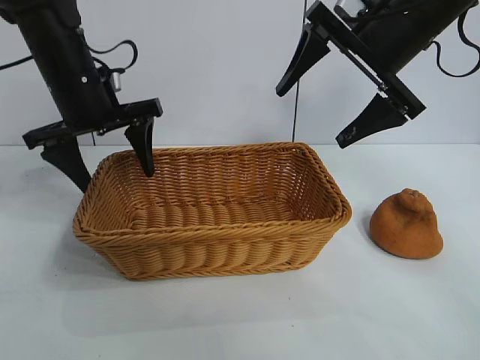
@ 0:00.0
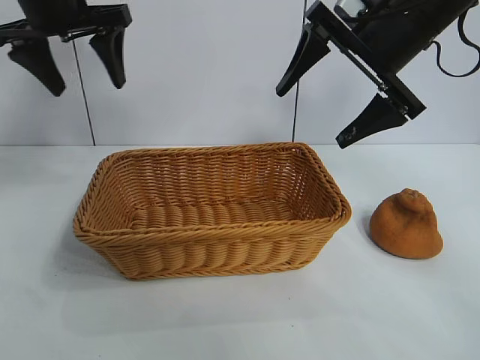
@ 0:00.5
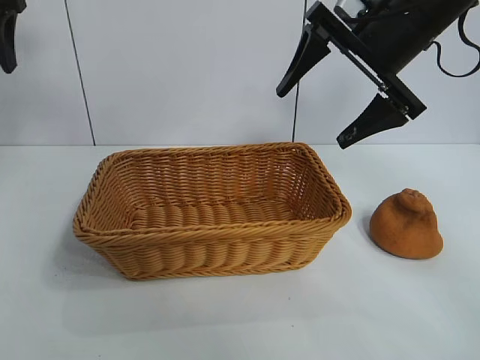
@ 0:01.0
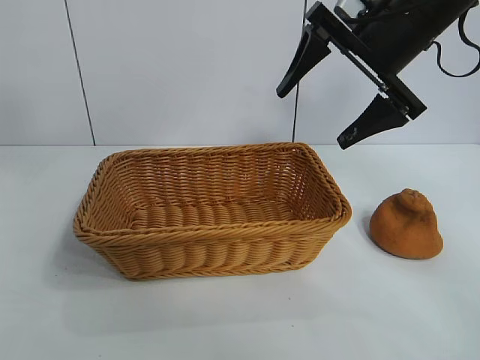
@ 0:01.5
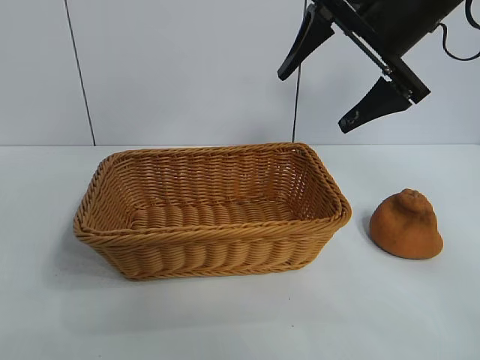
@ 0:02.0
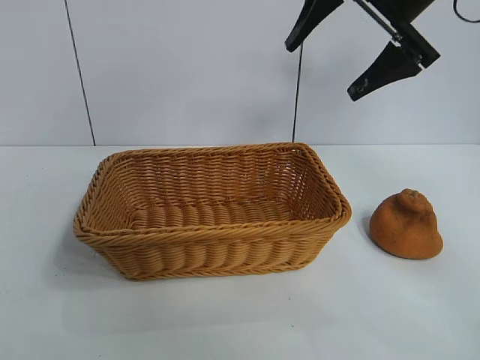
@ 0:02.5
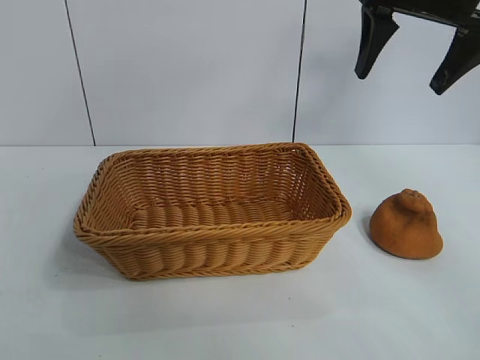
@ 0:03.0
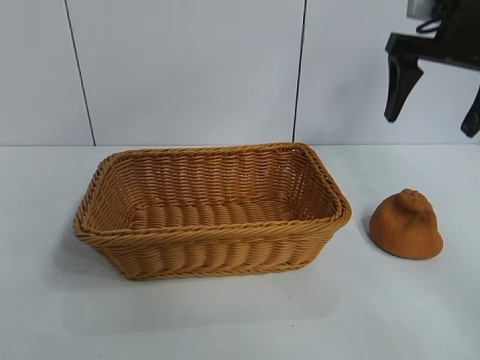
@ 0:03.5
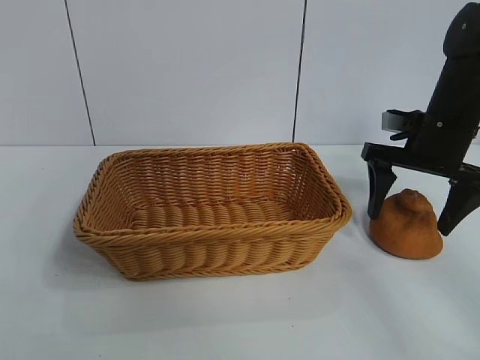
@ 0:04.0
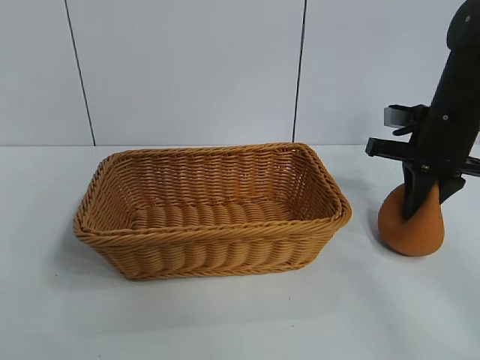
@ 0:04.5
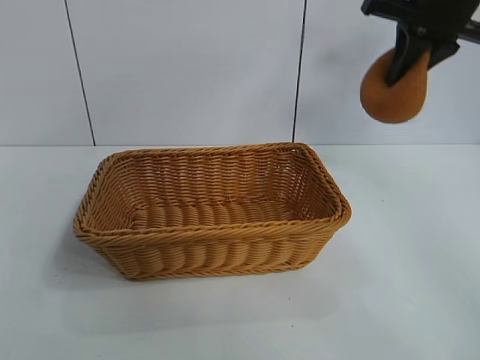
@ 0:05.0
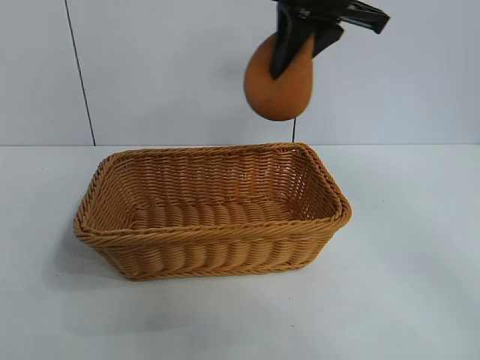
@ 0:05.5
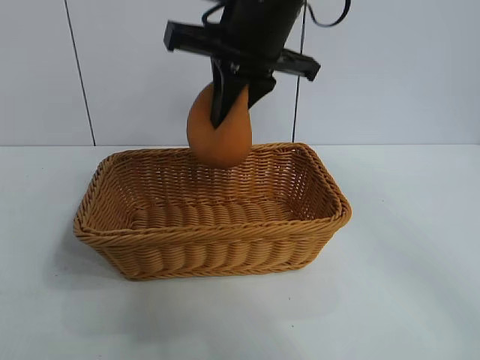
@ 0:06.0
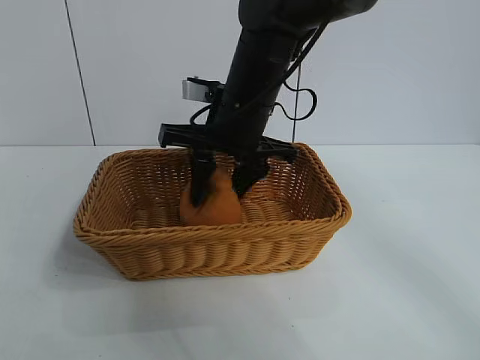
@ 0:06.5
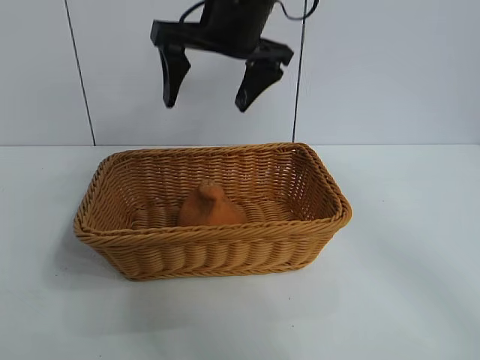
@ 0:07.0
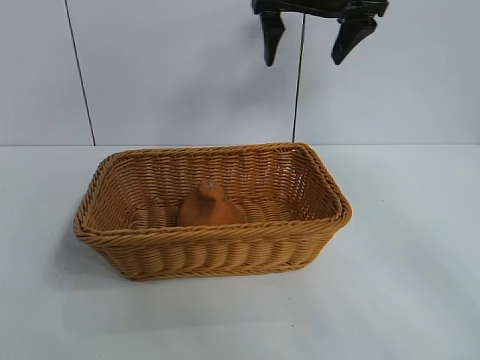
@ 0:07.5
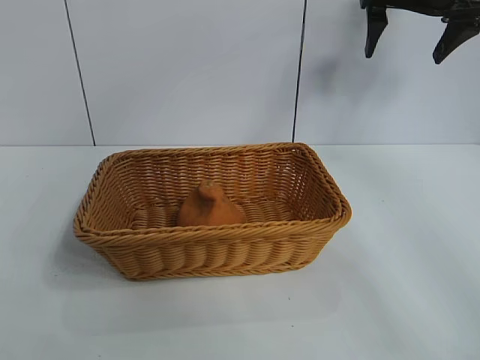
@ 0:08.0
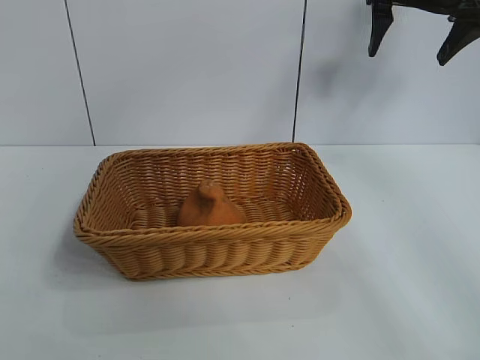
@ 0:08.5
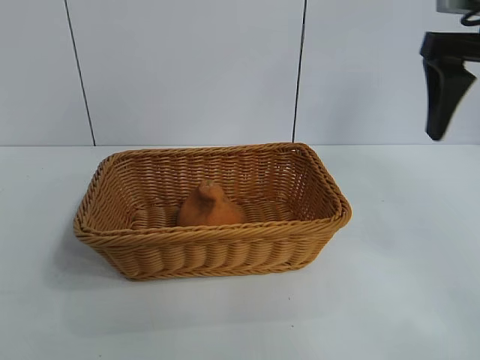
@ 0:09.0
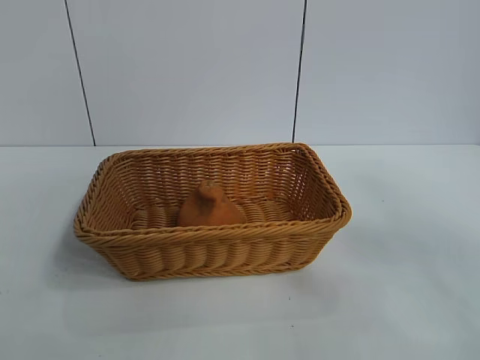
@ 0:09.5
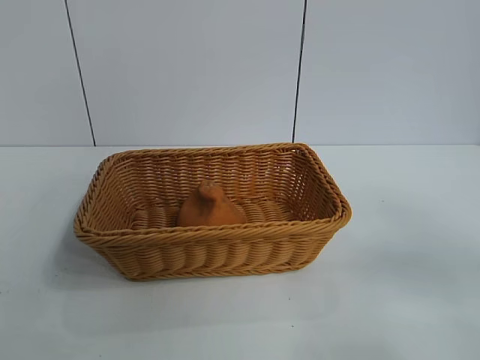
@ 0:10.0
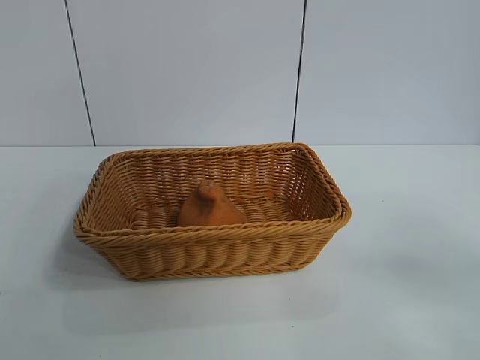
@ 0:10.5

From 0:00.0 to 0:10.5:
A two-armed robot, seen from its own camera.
Task of the whole recording: pick up the orange and put it into the basket.
Step, from 0:00.0 to 0:04.0: Grasp the orange with right gripper.
Step, from 0:04.5 to 0:06.5: Place the orange in the basket with right gripper.

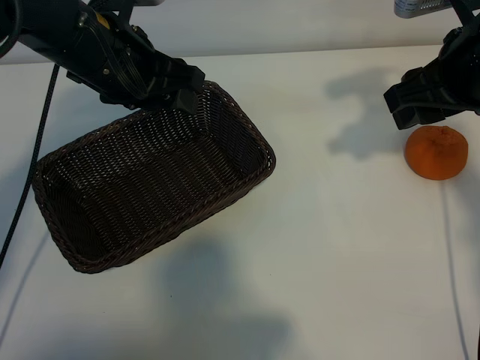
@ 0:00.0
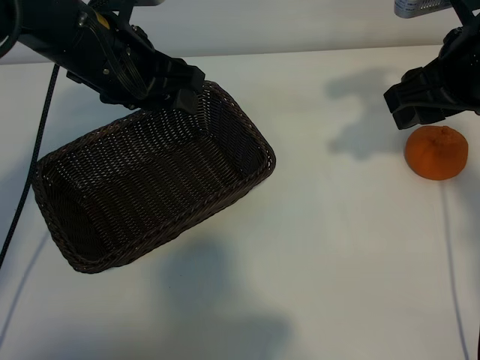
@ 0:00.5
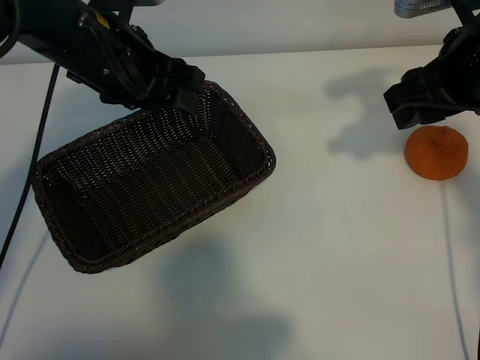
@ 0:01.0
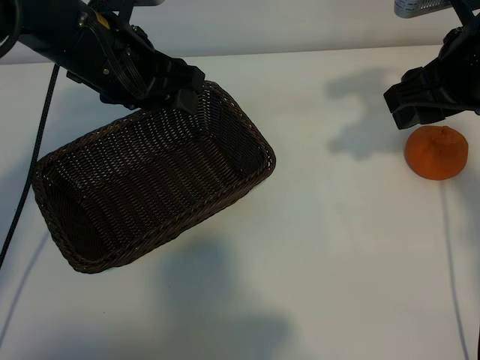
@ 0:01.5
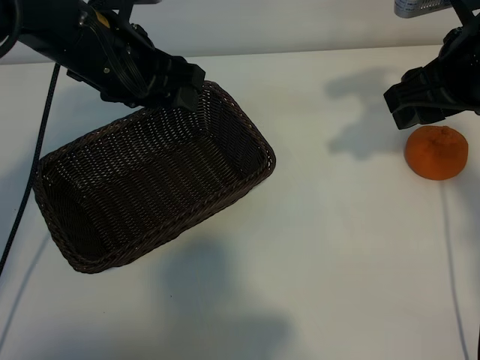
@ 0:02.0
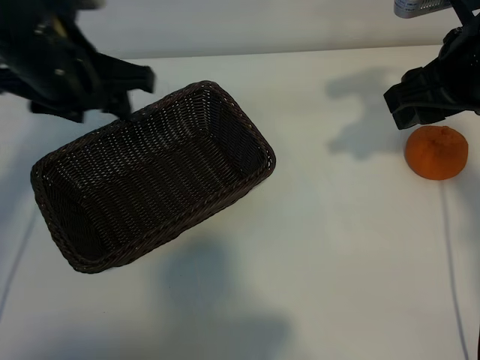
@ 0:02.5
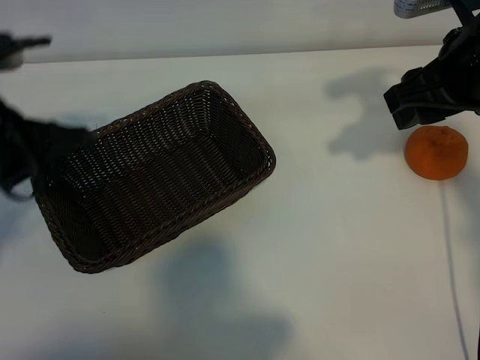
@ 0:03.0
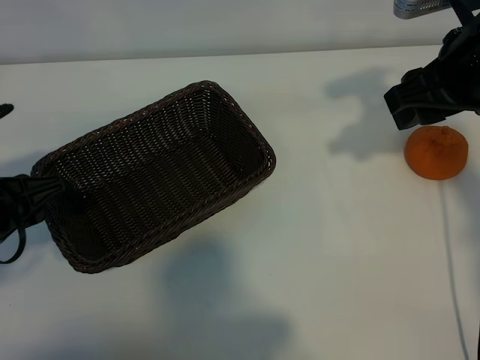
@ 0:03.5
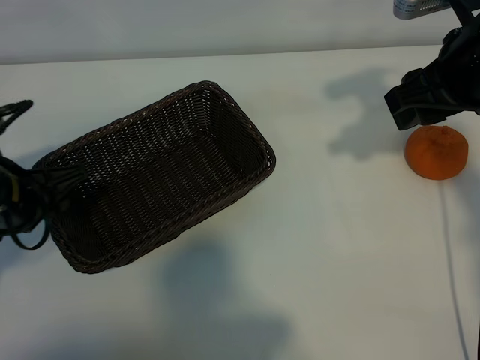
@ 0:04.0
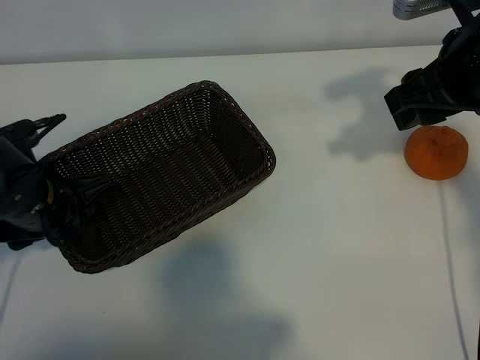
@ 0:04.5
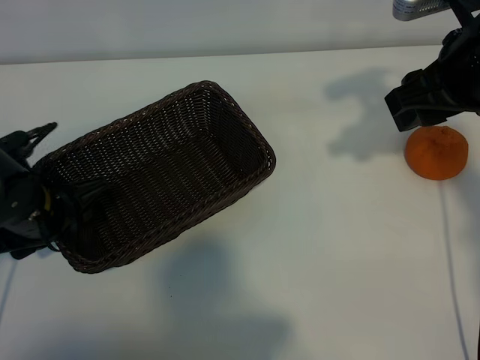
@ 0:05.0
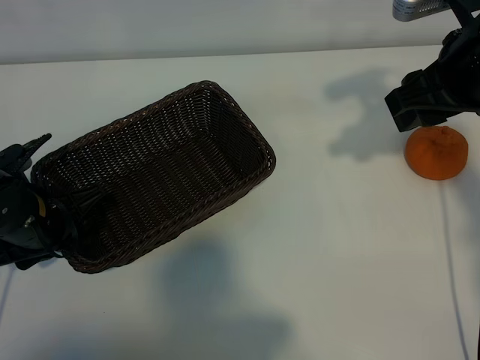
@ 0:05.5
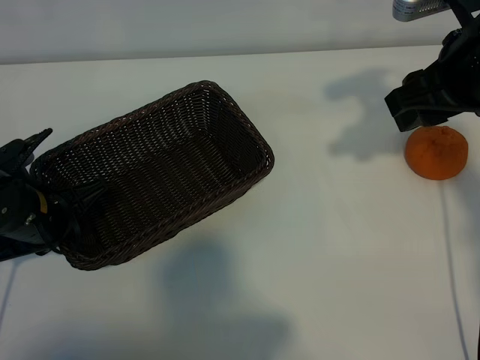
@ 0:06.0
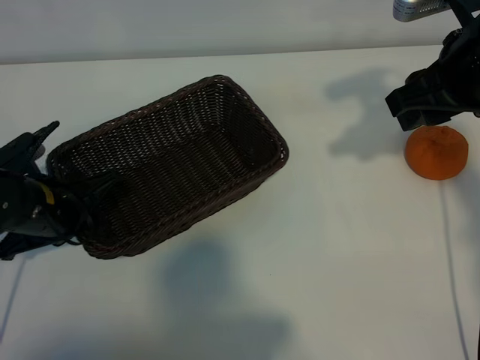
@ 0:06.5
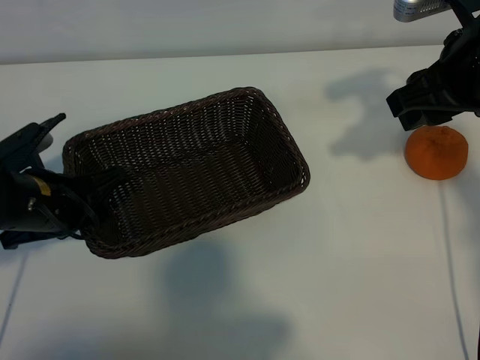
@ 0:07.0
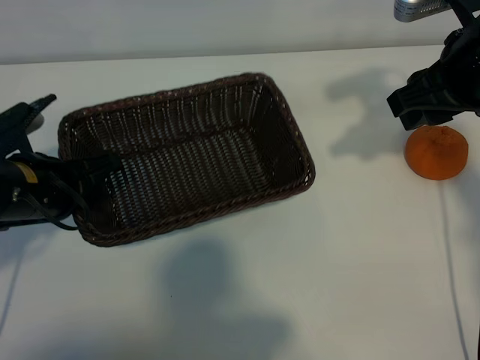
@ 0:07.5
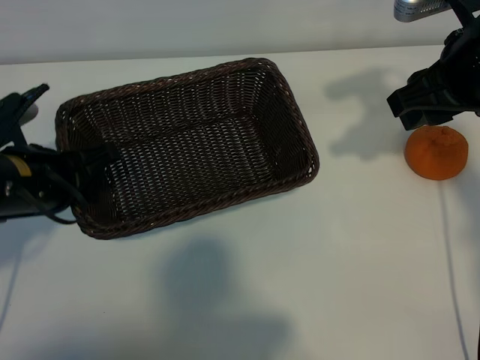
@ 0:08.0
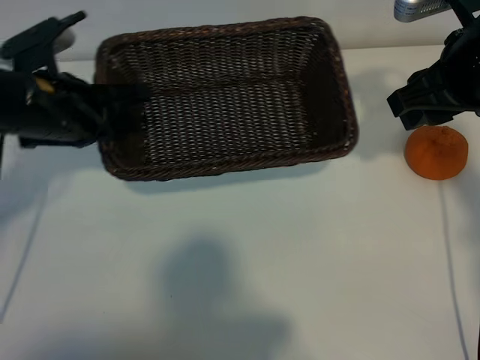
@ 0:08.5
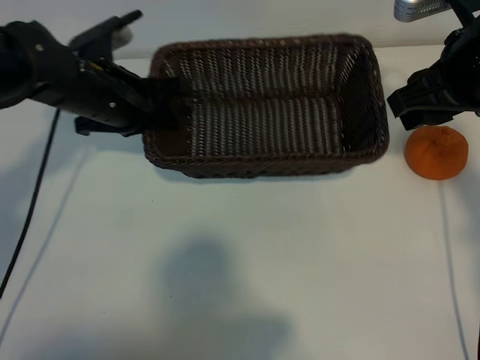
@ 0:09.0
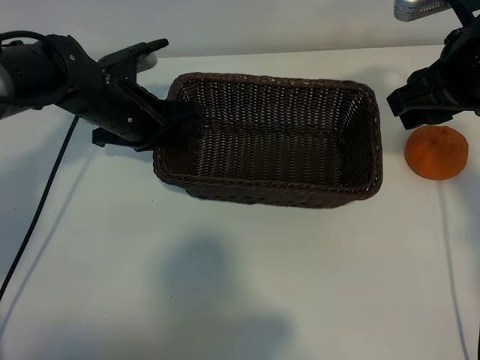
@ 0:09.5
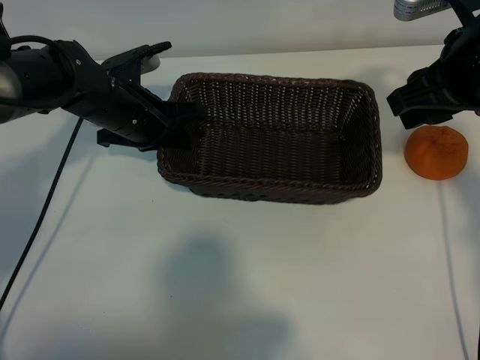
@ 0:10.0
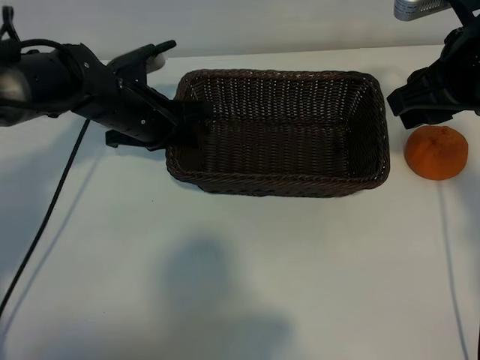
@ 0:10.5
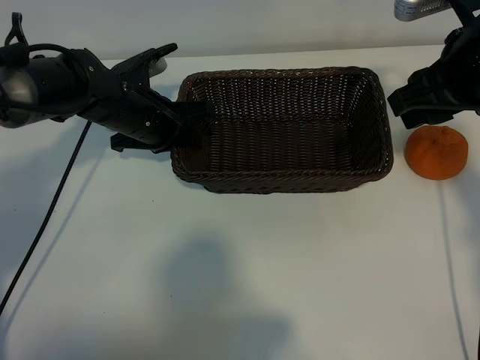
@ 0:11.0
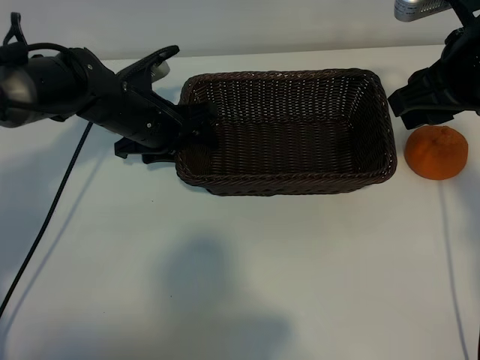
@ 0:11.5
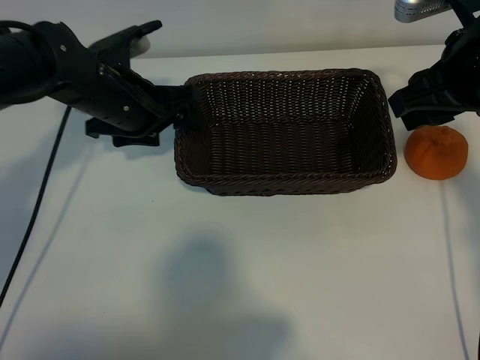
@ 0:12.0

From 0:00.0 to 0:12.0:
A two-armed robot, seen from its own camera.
Task of the whole recording: pick up the orange and put it into the basket.
Step, from 0:02.0 to 0:05.5: Grasp the basket with left gripper.
Step, from 0:06.0 to 0:11.0: Place the basket in the center of view with left gripper.

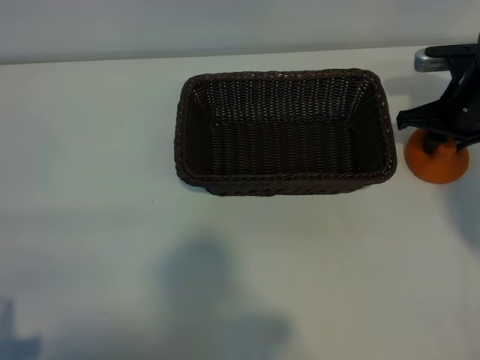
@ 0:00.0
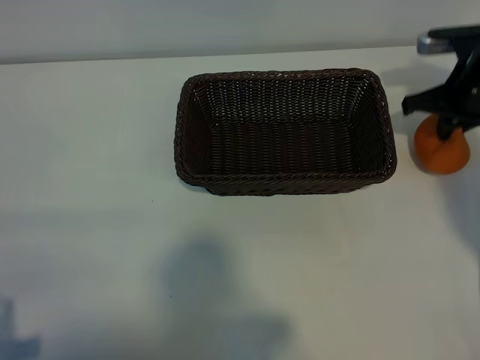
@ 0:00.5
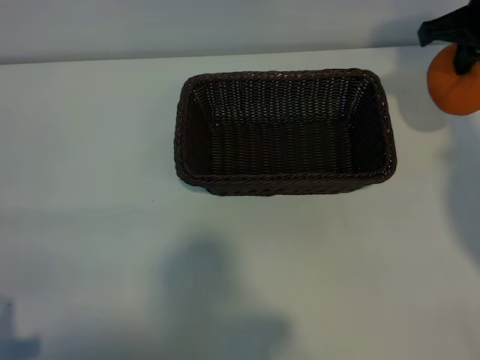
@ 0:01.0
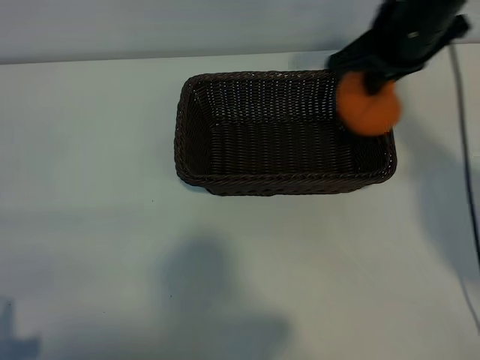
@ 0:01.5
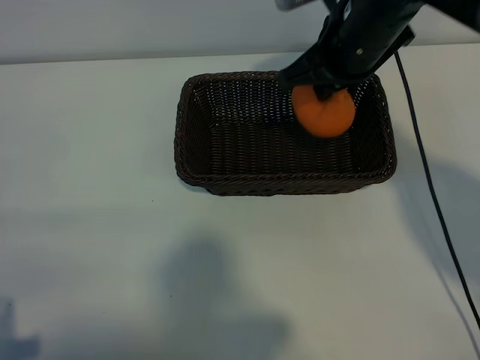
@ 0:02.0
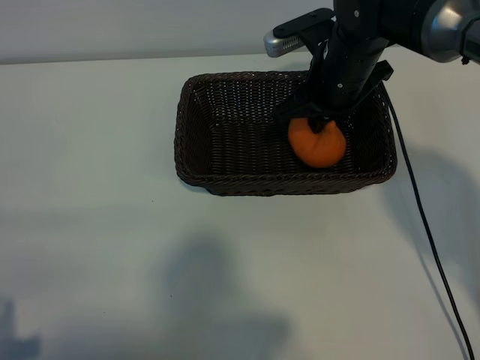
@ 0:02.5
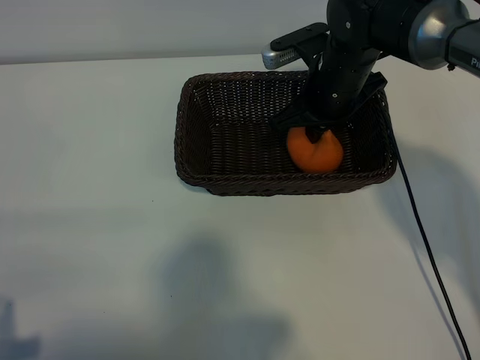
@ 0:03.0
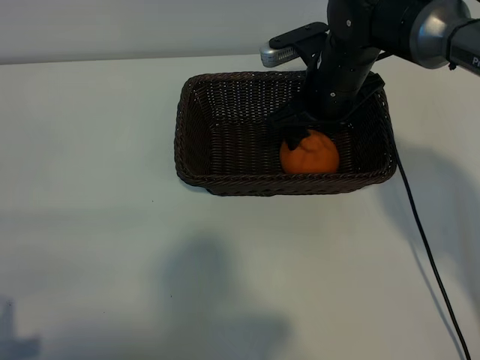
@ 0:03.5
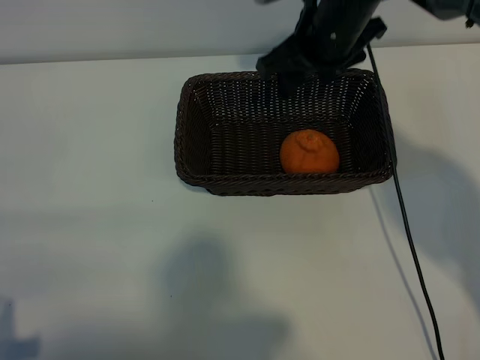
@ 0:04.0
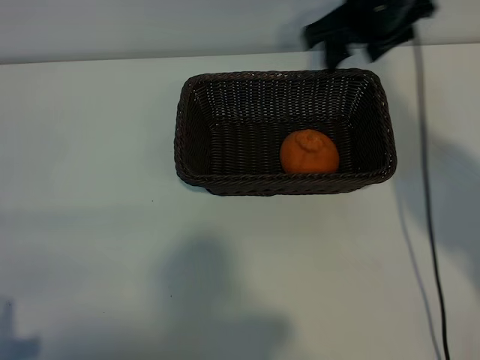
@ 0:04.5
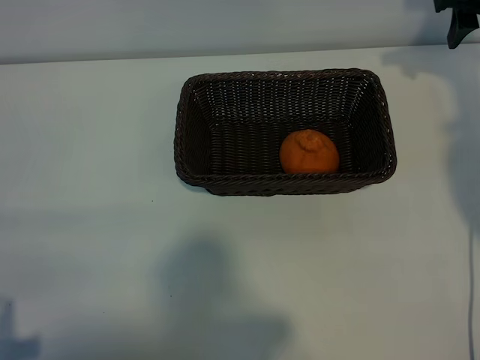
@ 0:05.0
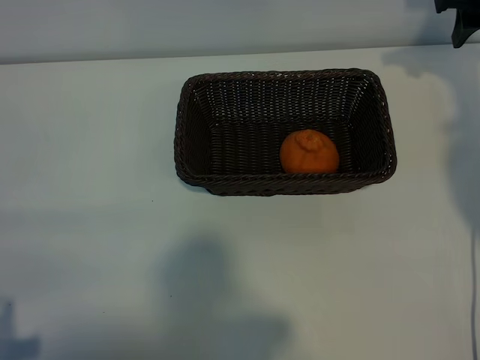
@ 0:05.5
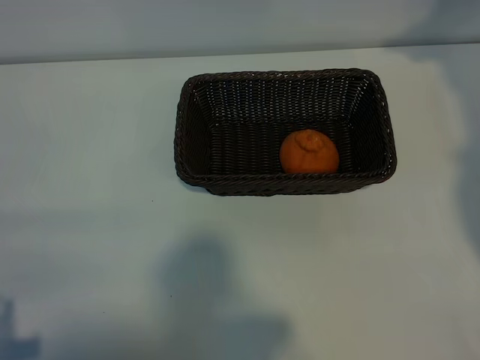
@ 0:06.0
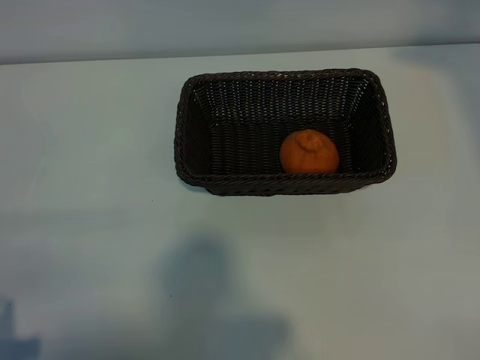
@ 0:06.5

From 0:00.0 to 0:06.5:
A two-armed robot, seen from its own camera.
Task of the whole recording: pick up the orange and put it into the basket.
Step, from 0:00.5 to 0:03.0: Place the orange in the basket with right gripper.
